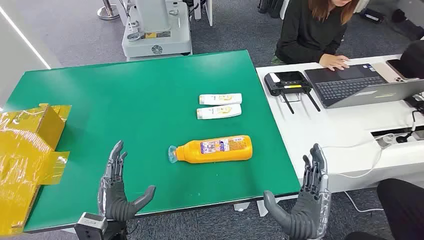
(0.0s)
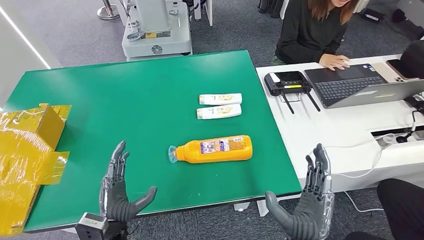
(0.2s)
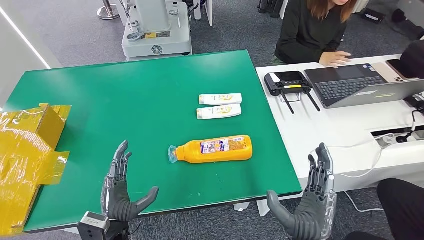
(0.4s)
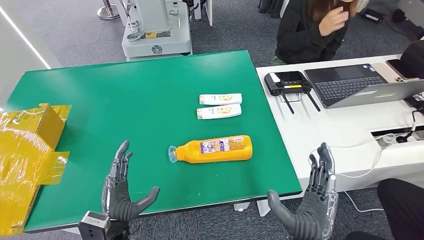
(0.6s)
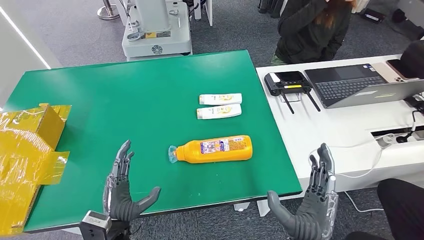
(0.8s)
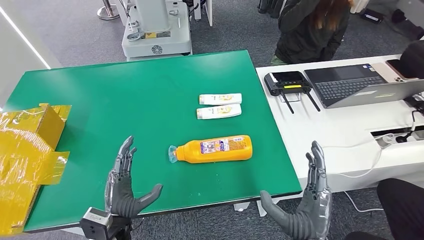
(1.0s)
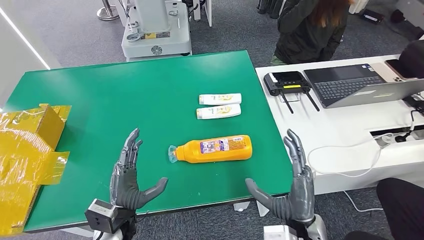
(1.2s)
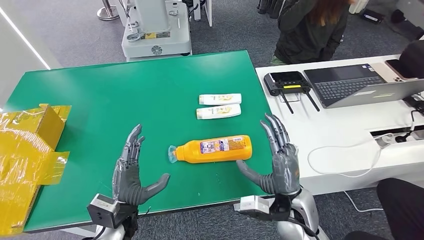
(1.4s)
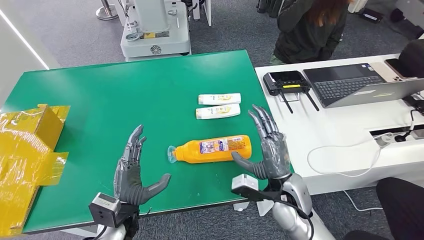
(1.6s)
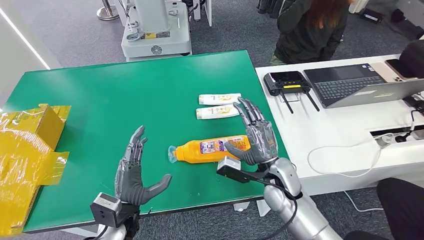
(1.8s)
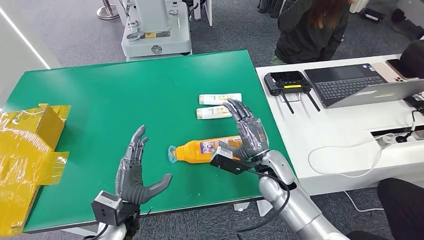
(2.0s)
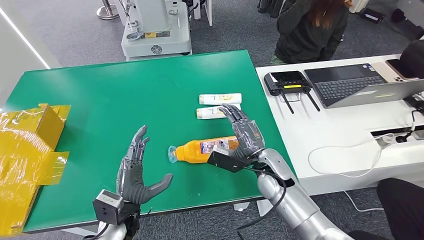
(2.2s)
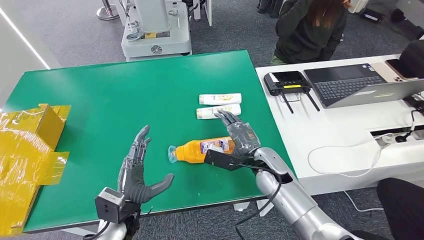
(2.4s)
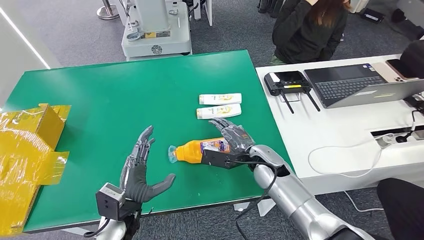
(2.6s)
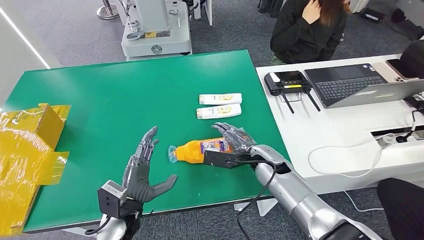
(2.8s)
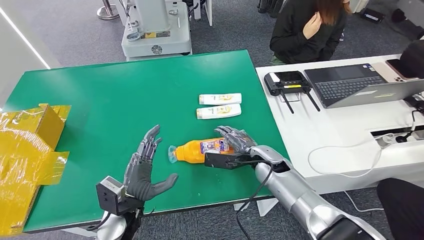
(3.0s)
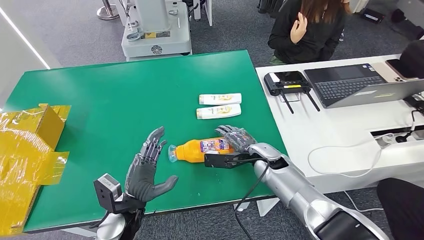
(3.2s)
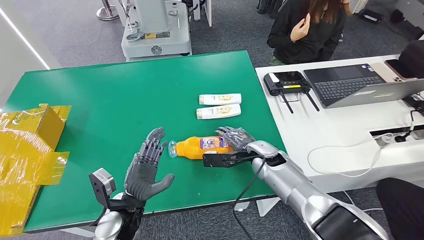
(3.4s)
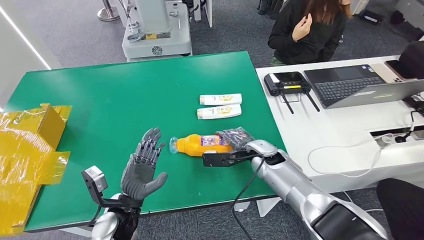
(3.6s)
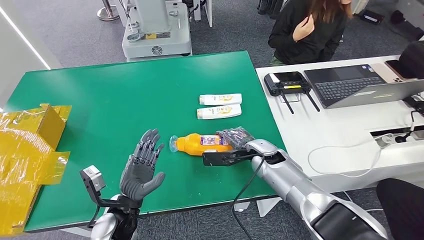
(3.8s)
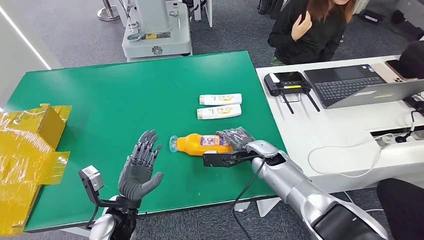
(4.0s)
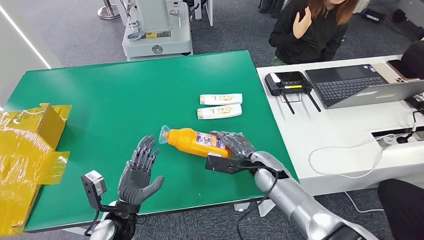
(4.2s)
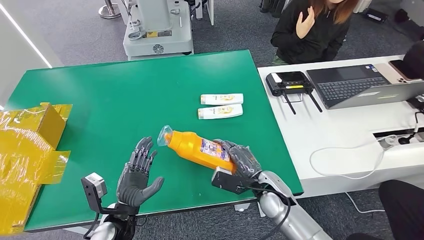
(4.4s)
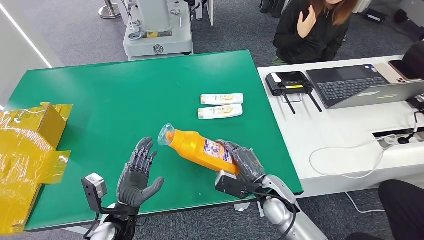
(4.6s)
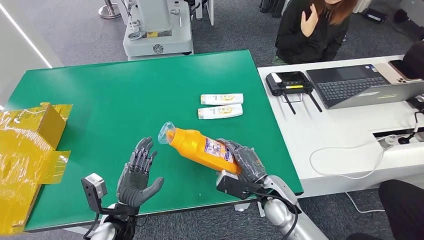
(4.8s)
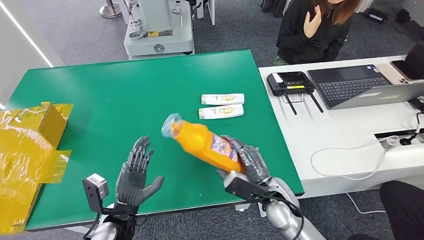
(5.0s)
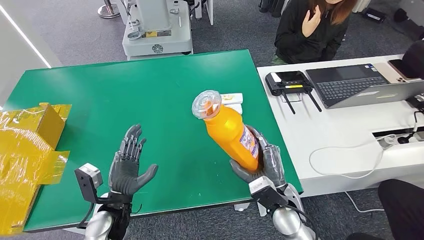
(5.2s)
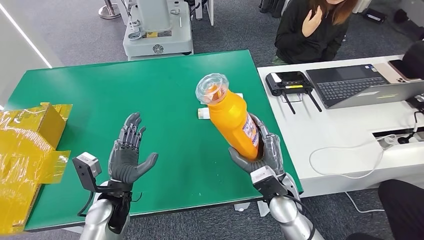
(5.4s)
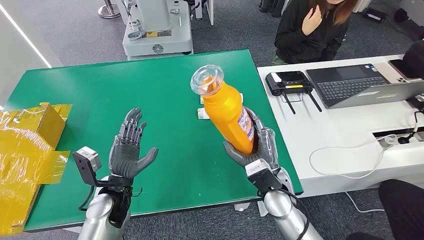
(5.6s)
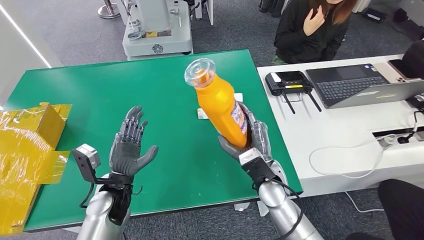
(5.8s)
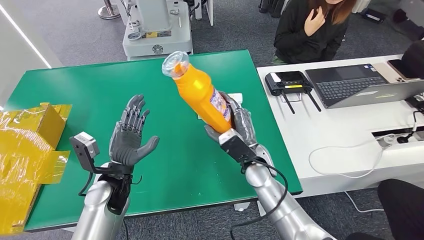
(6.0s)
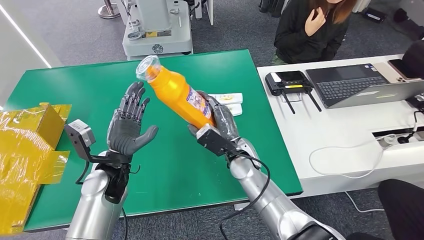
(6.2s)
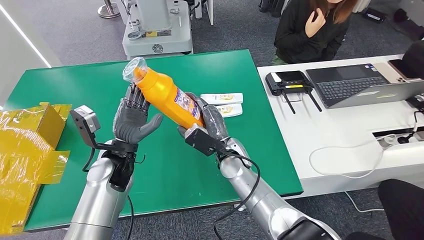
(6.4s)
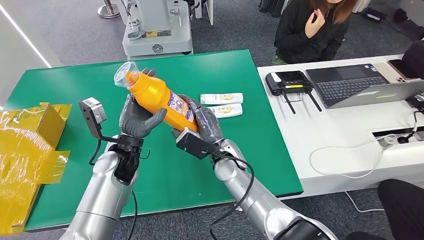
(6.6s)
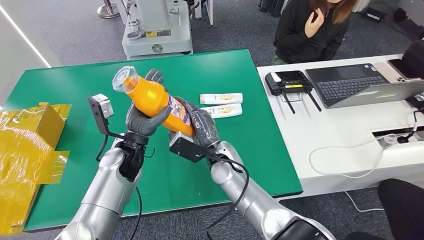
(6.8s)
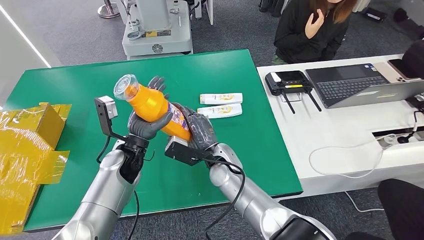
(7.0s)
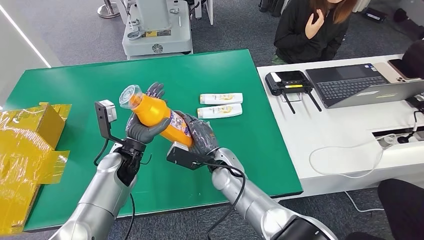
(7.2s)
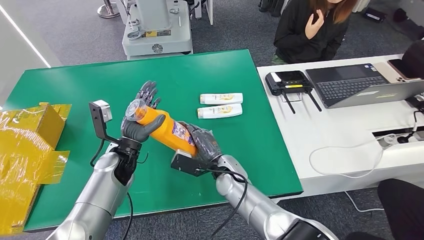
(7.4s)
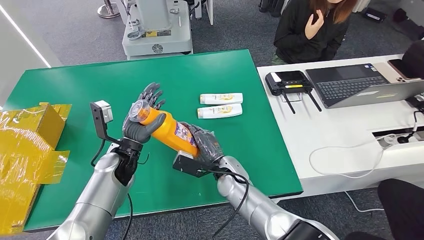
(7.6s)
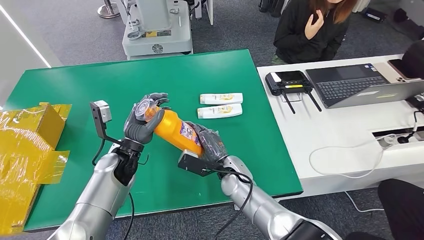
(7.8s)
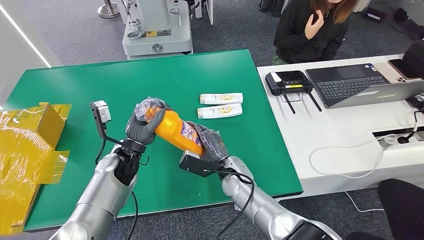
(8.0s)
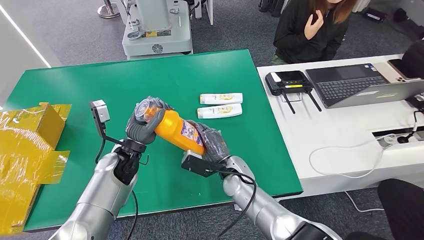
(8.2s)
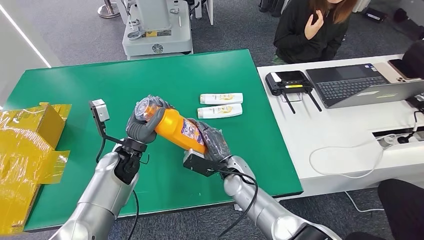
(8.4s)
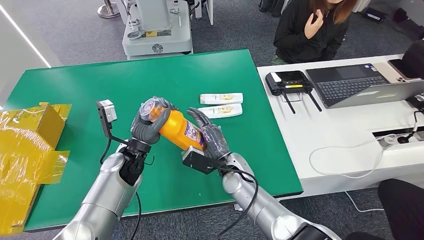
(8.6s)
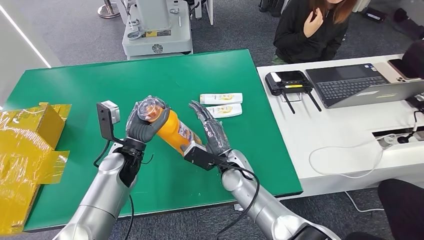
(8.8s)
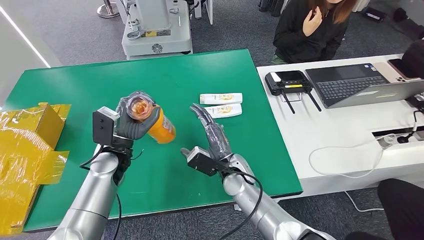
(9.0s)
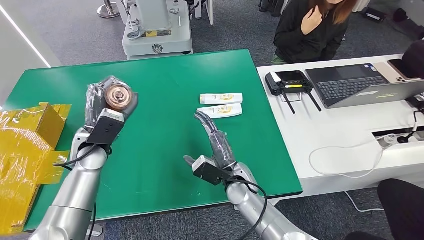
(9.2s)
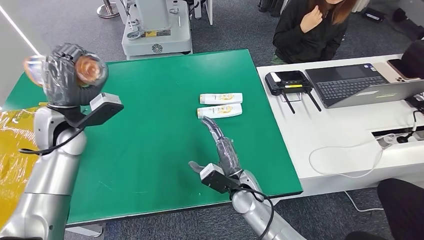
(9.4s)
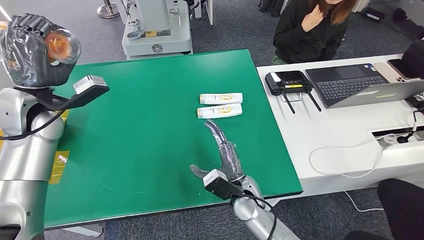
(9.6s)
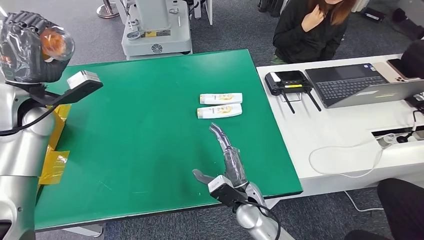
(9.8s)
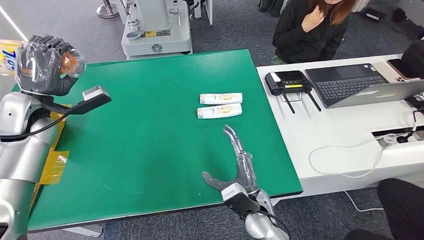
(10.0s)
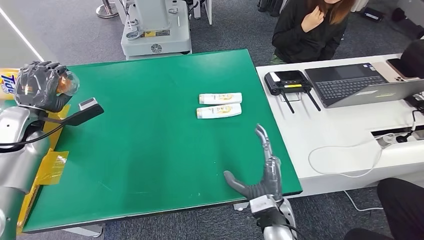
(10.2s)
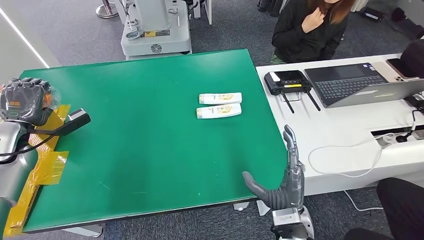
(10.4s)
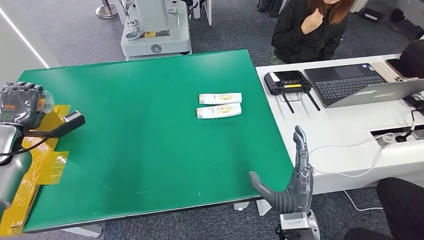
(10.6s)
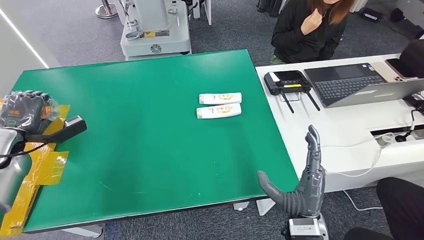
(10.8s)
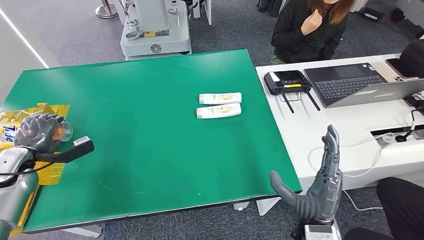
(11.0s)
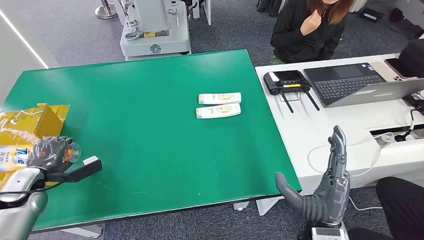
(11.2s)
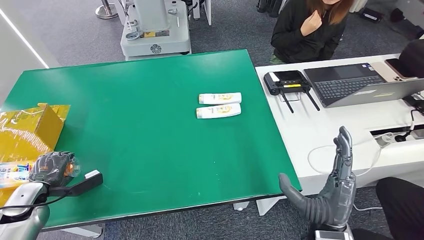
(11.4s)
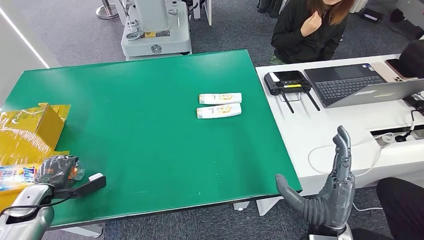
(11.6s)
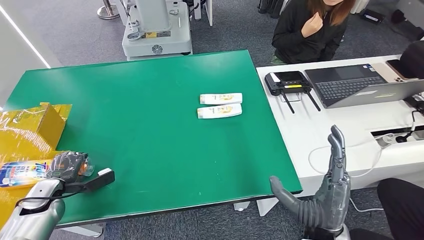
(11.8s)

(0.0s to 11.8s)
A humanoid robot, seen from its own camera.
Step, 0.0s - 5.6s: Pick up the bottle from the table.
1.4s - 3.0s: The right hand travels forward by about 15 cm.
3.0s - 4.4s: The right hand goes roughly 10 cm backward.
4.4s - 6.0s: Both hands travel together forward and upward, approximately 10 cm.
6.0s - 7.4s: The left hand heads forward, covering roughly 5 cm. The right hand is displaced to the left by some 5 cm.
7.4s - 8.8s: The hands stay close to where they were, moving slightly.
10.4s - 11.8s: The right hand travels upward by some 5 cm. The left hand travels downward and backward by some 20 cm.

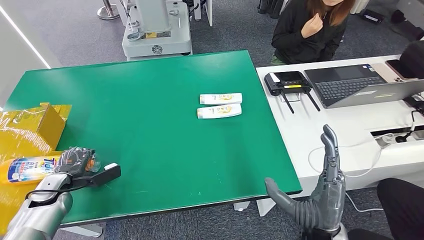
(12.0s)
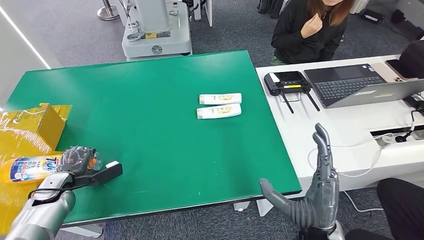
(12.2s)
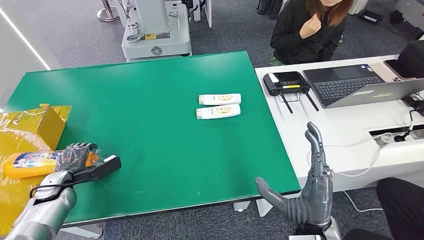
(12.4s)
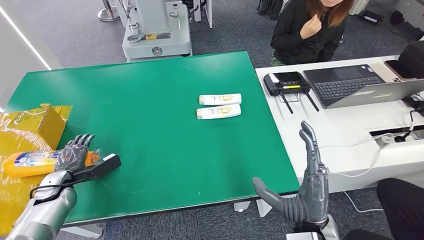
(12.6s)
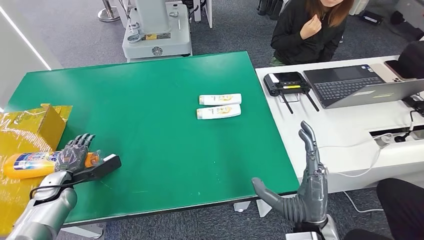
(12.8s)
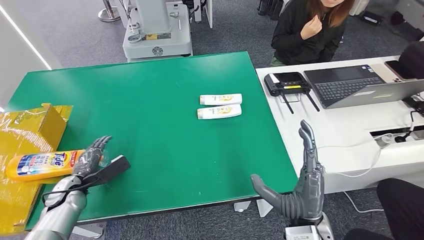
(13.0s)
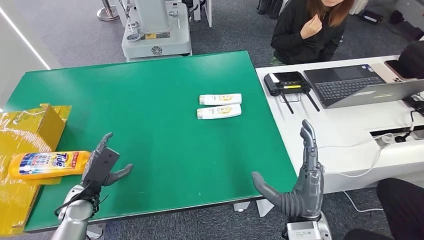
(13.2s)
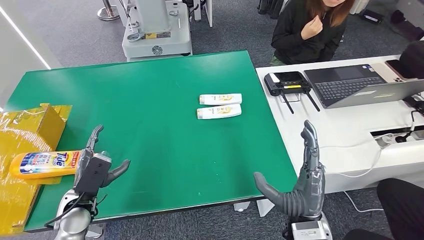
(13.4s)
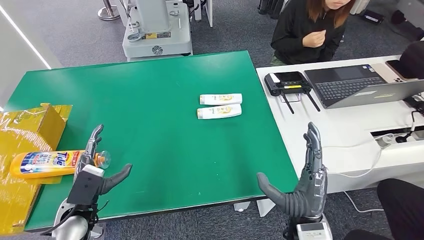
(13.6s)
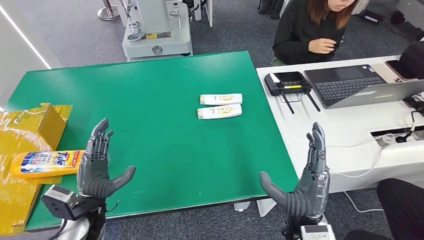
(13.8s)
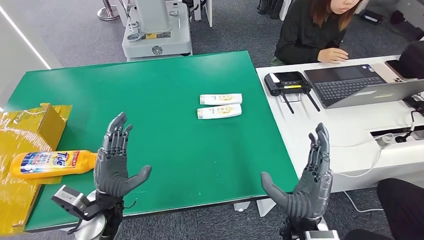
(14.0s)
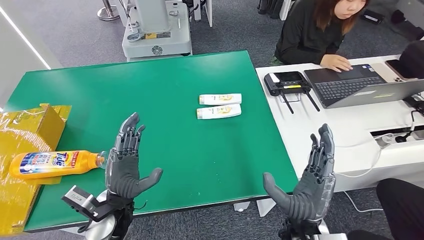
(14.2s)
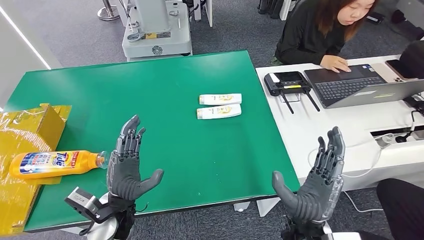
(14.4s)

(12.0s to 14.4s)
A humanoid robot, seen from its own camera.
Step, 12.0s - 14.4s: Turn the bottle to the front side.
12.0s - 13.2s: The left hand travels to the right by approximately 10 cm.
13.2s - 14.4s: The left hand shifts approximately 20 cm to the right, backward and upward.
